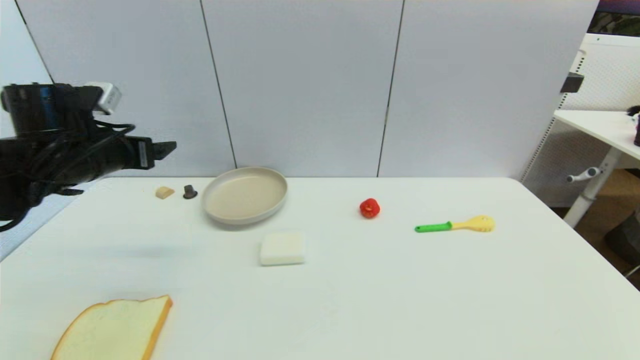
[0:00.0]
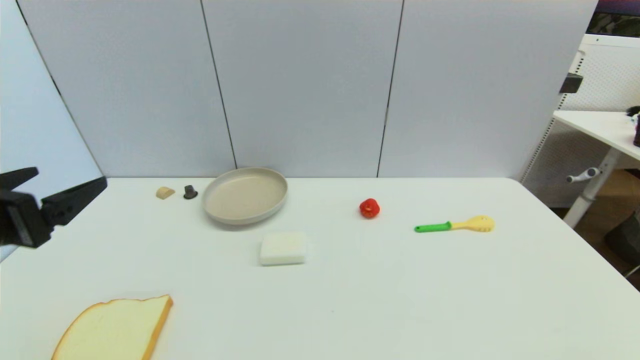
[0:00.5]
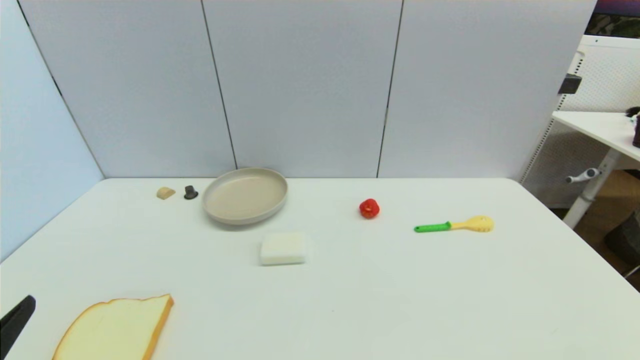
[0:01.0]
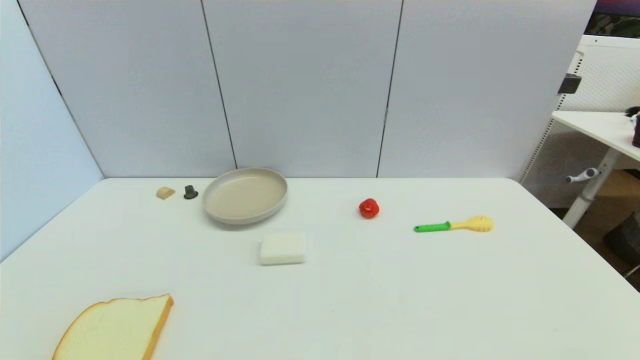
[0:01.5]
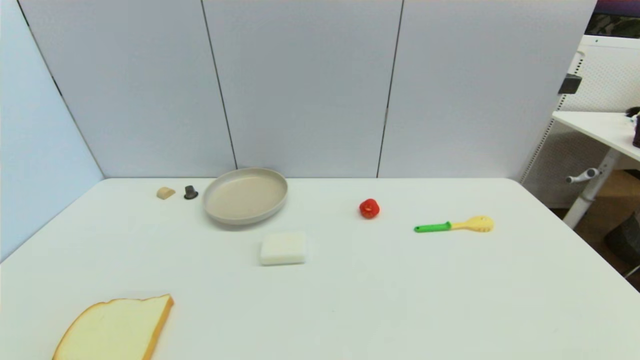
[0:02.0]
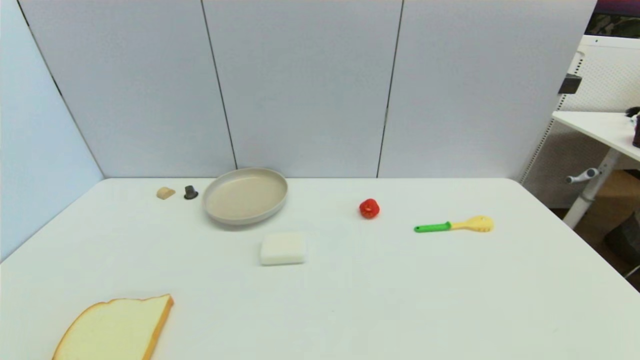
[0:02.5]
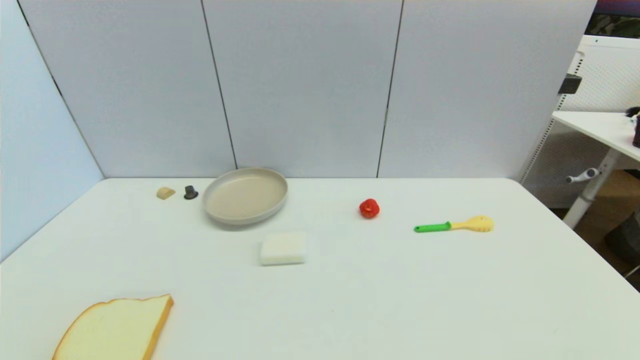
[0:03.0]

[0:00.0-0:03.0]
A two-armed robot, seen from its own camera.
0:00.0 to 0:01.5: The left gripper travels backward and downward by some 35 cm.
